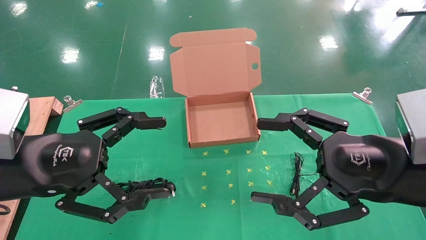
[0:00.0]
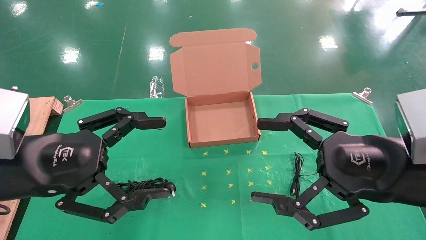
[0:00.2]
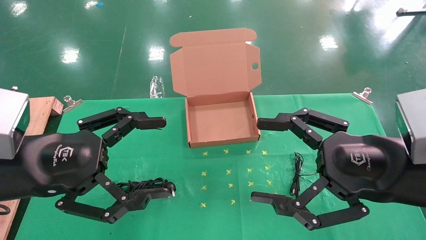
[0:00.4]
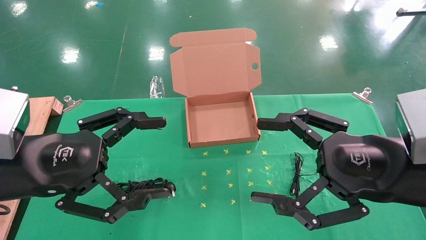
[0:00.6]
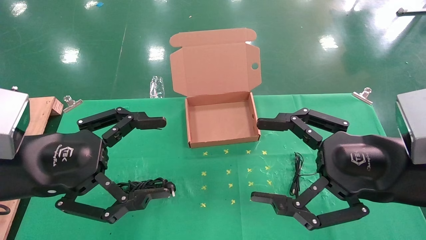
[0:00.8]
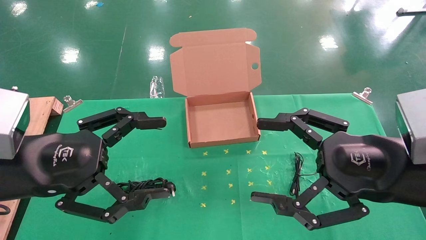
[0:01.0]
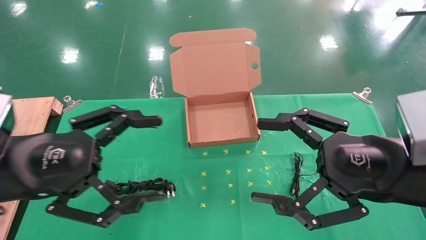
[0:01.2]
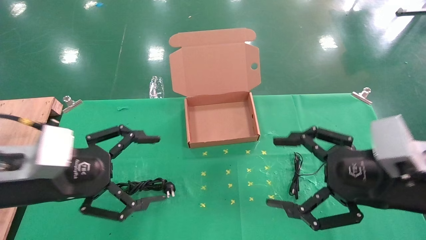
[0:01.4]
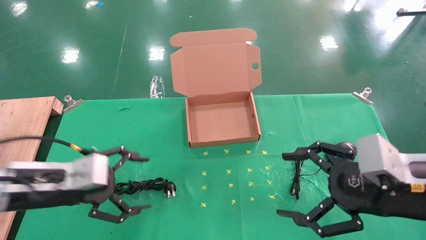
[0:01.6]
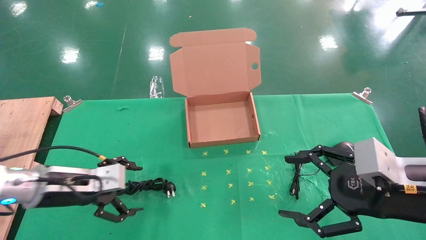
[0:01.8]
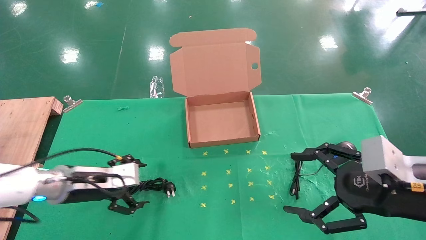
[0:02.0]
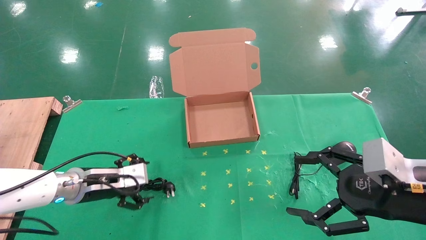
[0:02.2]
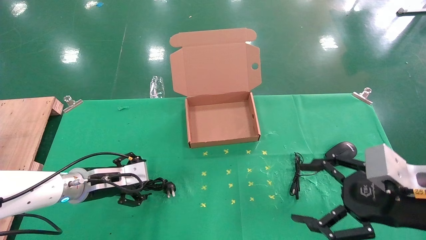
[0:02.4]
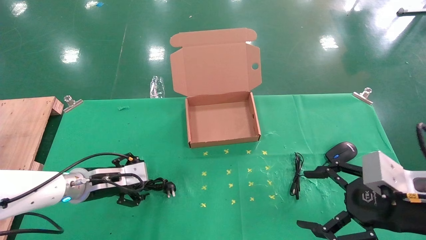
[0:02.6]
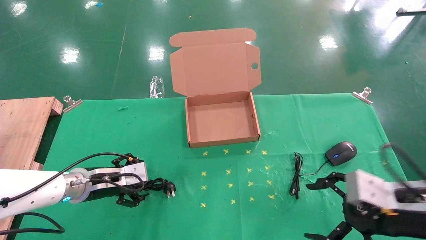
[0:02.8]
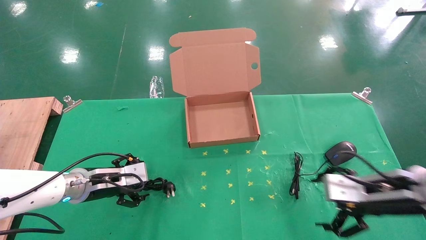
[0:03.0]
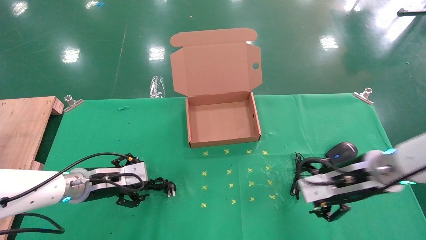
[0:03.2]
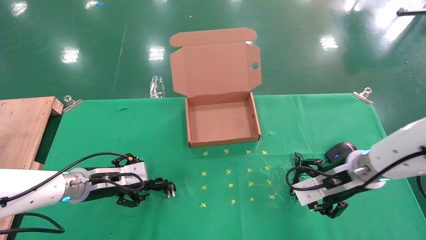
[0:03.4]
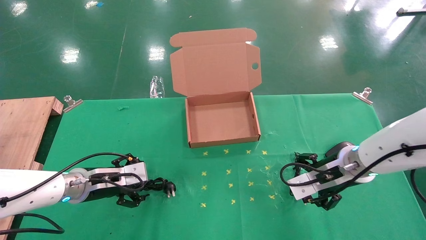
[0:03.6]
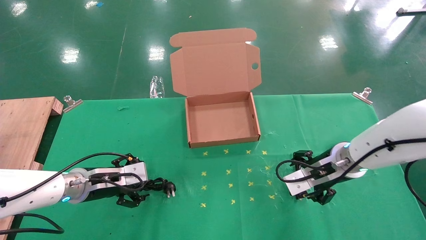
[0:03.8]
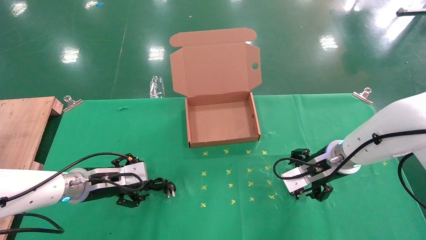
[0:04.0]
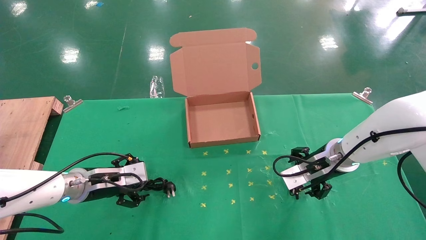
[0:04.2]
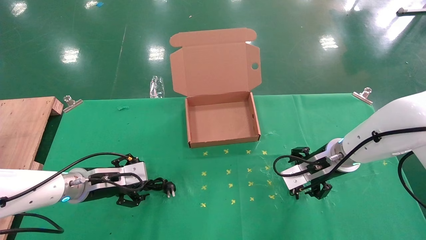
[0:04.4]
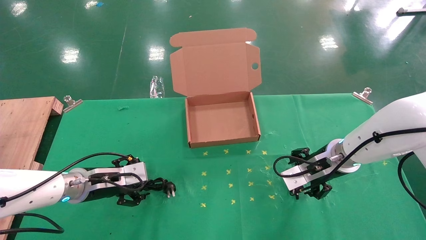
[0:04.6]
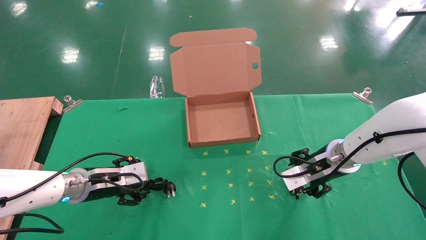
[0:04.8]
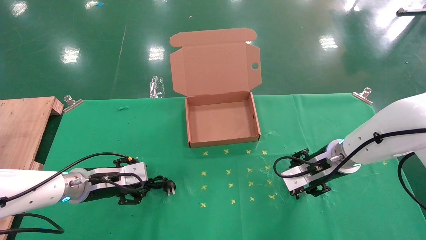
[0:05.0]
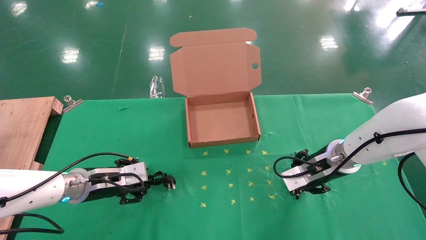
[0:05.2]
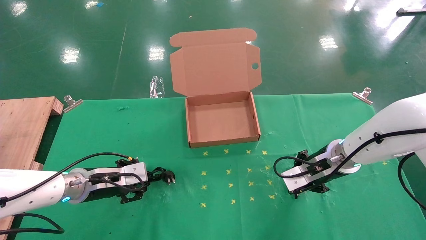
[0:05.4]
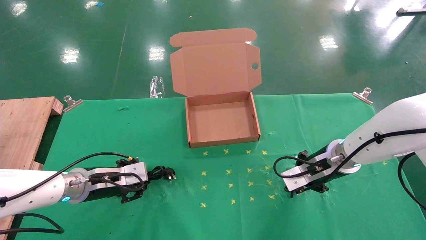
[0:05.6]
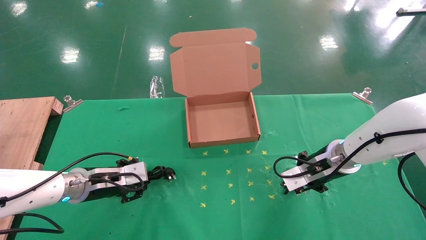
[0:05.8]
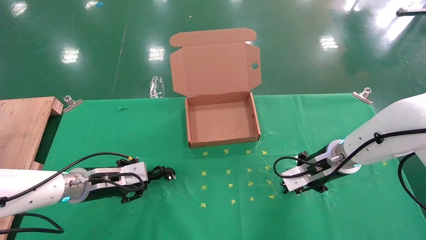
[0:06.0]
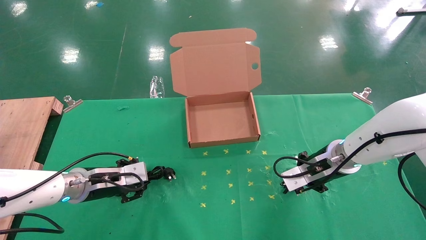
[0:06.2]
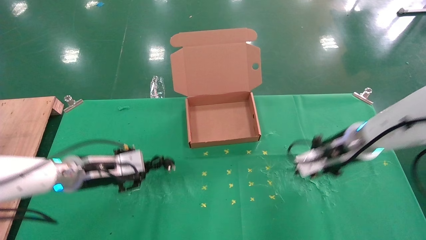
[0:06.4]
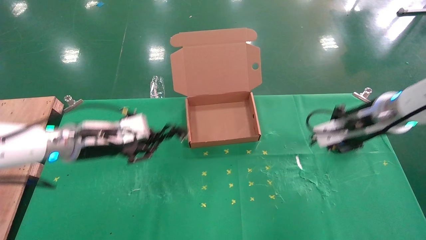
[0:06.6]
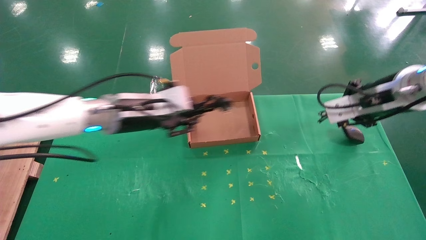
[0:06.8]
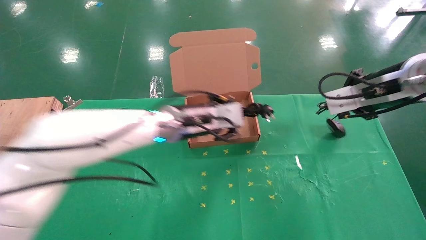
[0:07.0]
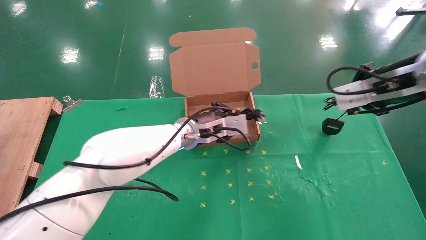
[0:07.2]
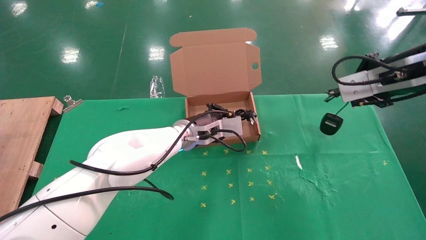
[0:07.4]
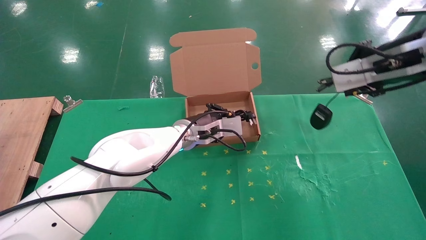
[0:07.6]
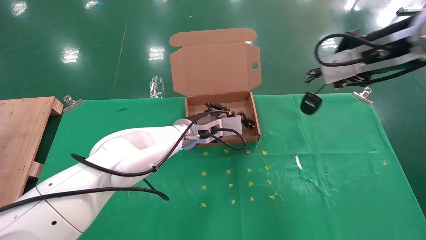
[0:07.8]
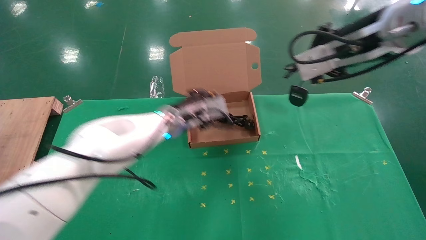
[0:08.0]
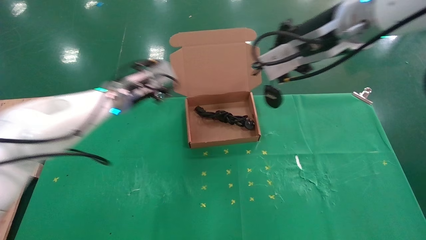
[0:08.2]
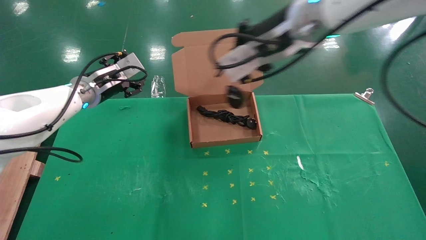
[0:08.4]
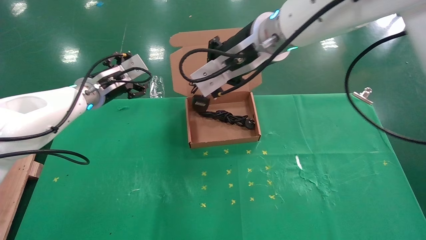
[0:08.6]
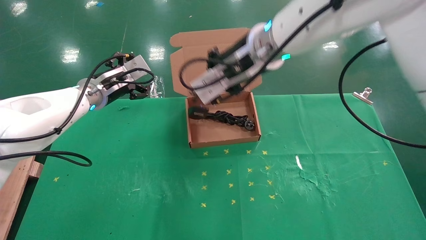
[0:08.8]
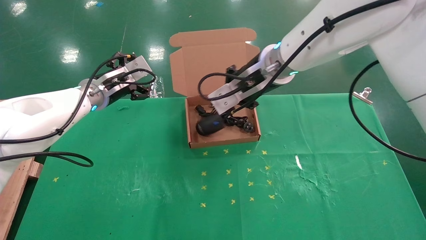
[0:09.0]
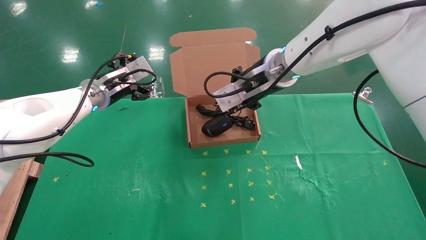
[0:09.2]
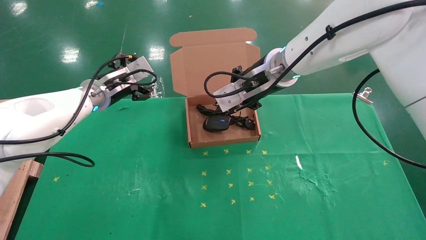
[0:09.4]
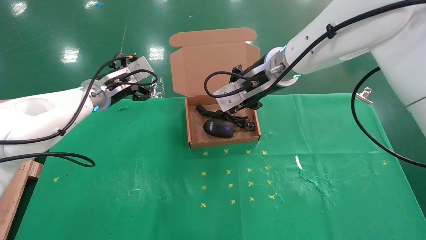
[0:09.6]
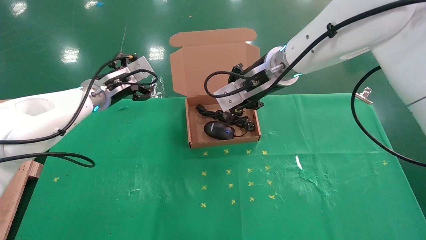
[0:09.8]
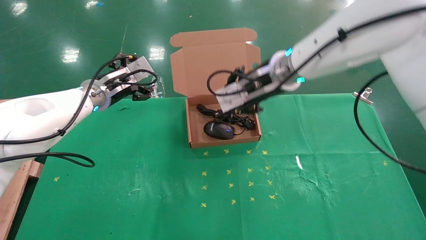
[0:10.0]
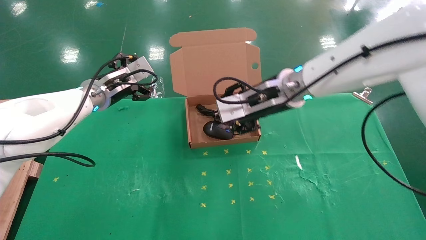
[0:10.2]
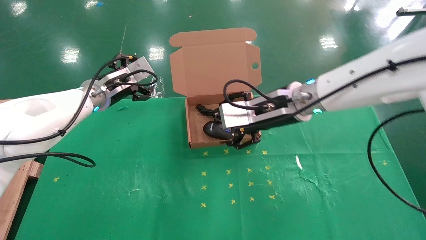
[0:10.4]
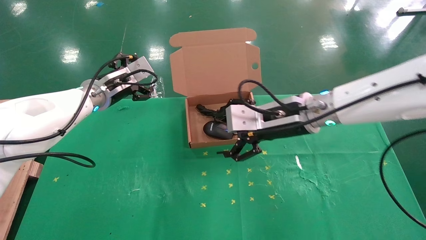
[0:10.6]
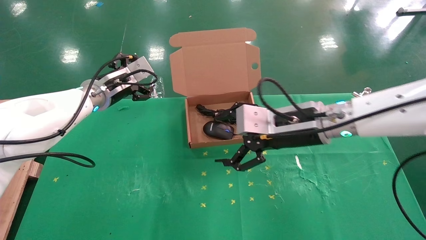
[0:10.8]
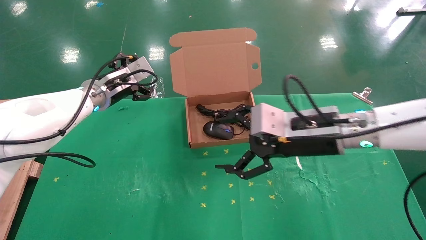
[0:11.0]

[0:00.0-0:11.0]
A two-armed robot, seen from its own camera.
Task of the whole recording: grasp data cable left put into box grasp mouse right put into box.
Step, 0:01.4 to 0:06.0: Simultaneously pick up the mouse and power cord from the accessory packaging area.
Step, 0:06.2 to 0:09.6: Place the mouse and power cord into the box.
0:00.0 to 0:01.6: The left gripper heads downward and forward, covering some 10 cm. Meanwhile the right gripper moves about 5 cm.
0:01.6 to 0:03.2: The two grippers go about 10 cm forward and downward.
0:03.2 to 0:04.8: The right gripper moves forward, about 10 cm.
0:04.8 to 0:06.2: The right gripper closes up. The left gripper closes up.
0:06.2 to 0:07.8: The left gripper travels to the right and forward by some 25 cm, while the right gripper is displaced upward by approximately 25 cm.
0:07.8 to 0:09.4: The right gripper is displaced to the left and forward by approximately 20 cm; the left gripper heads to the left and upward, covering some 20 cm, and opens its fingers.
0:09.4 to 0:11.0: The right gripper heads backward, downward and to the right, covering roughly 15 cm, and opens up.

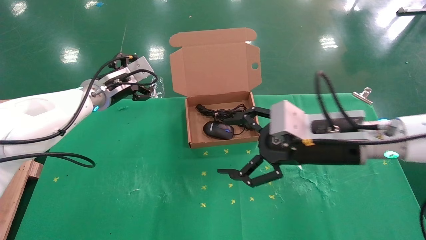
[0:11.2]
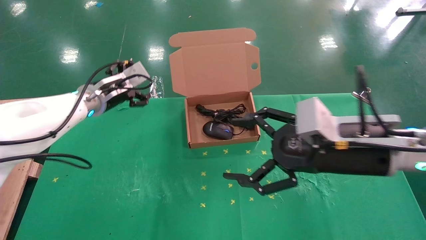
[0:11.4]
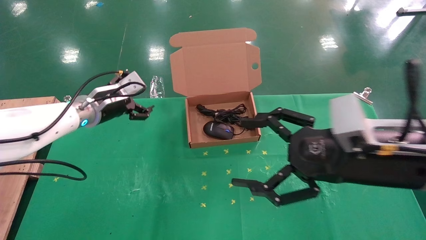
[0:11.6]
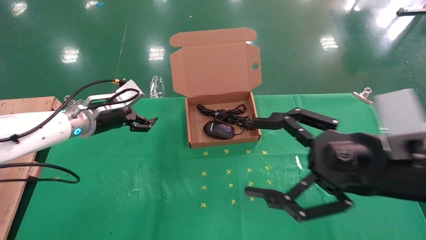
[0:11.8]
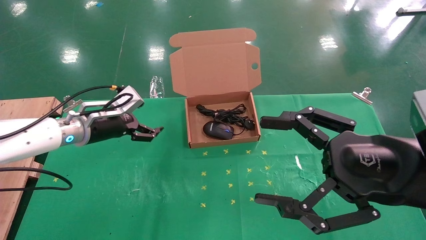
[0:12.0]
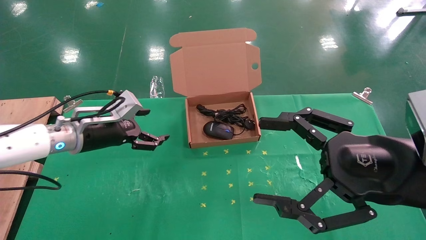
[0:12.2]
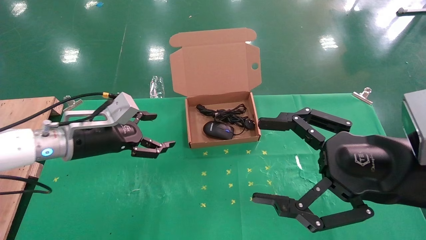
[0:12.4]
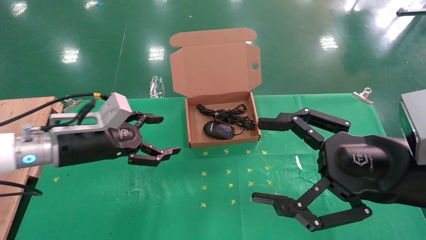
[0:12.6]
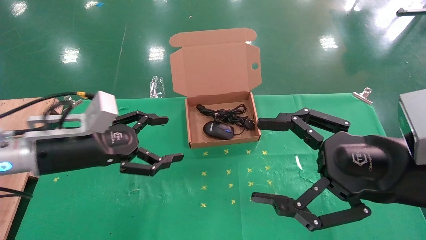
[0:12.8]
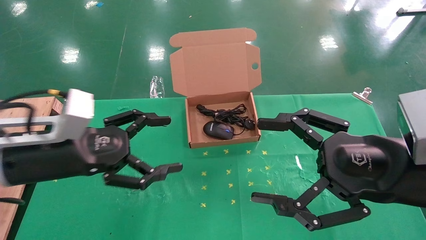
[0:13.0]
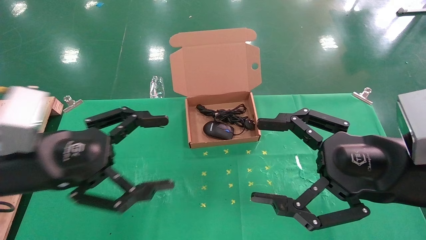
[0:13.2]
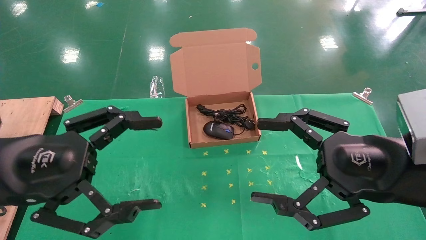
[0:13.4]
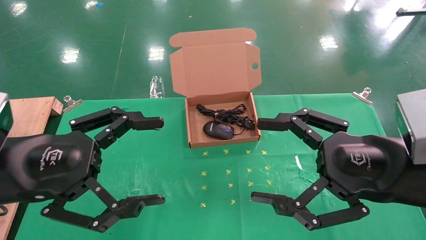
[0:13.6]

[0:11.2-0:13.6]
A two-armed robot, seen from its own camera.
Task of the whole recording: grasp data cable left put into box grasp mouse right put into box.
0:11.2 to 0:12.4: The right gripper shifts roughly 10 cm backward and to the right, while the left gripper goes about 10 cm backward and downward.
0:12.4 to 0:13.6: The left gripper is displaced backward by roughly 15 cm.

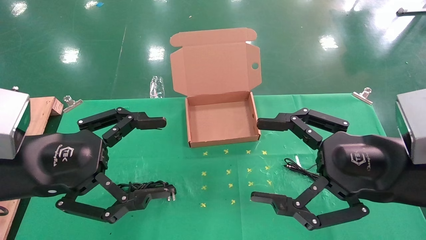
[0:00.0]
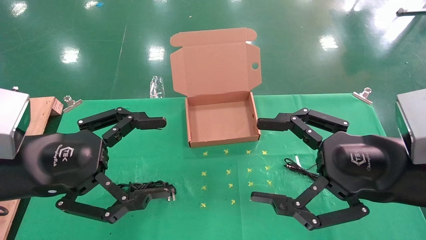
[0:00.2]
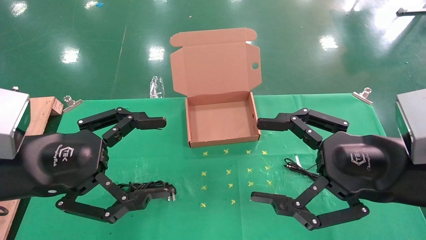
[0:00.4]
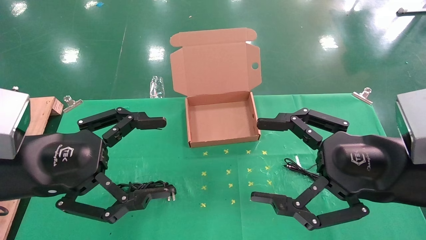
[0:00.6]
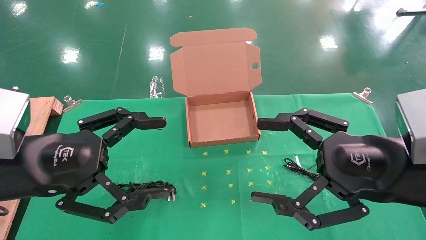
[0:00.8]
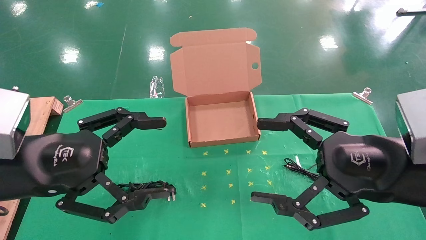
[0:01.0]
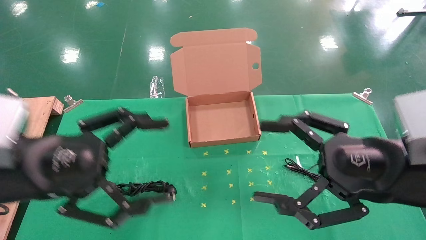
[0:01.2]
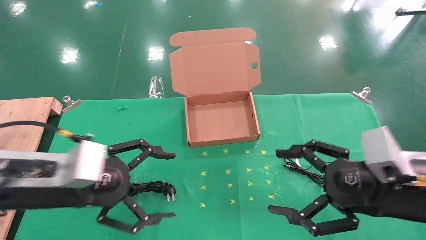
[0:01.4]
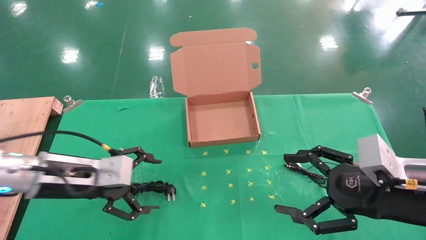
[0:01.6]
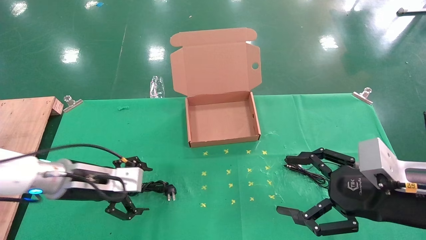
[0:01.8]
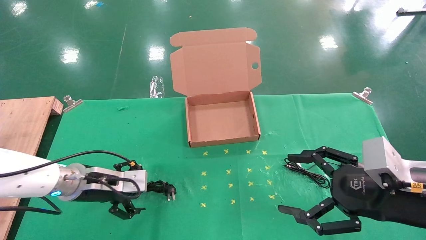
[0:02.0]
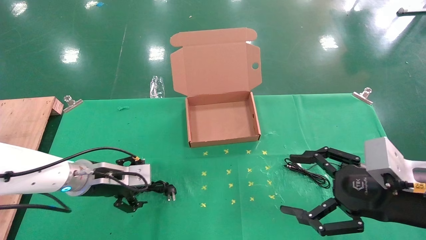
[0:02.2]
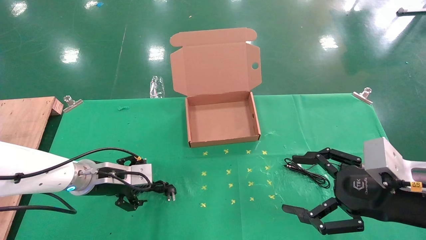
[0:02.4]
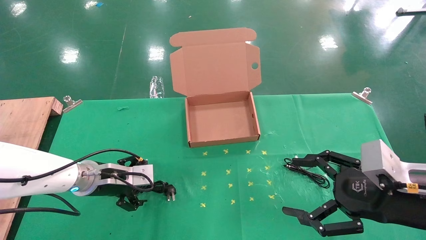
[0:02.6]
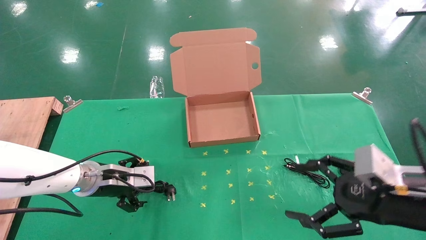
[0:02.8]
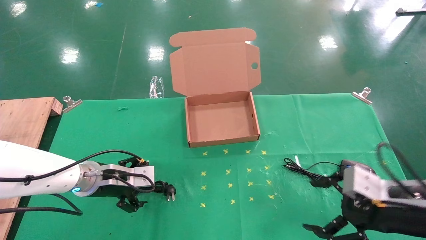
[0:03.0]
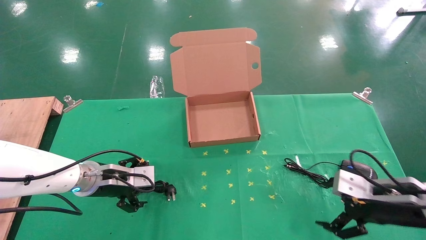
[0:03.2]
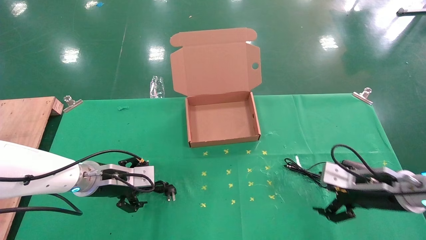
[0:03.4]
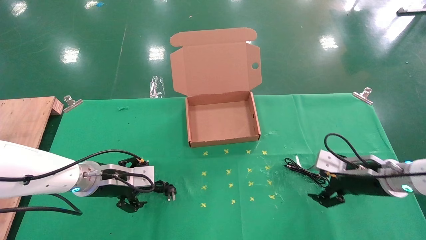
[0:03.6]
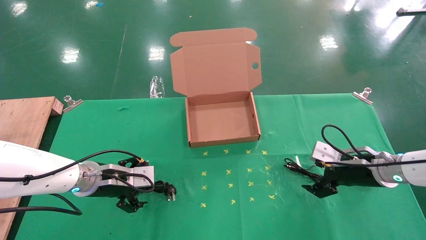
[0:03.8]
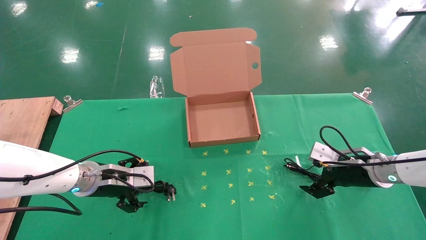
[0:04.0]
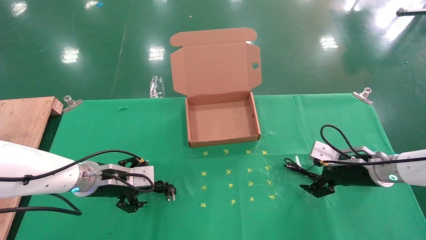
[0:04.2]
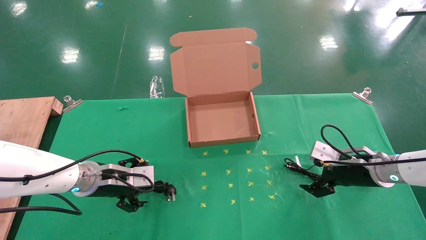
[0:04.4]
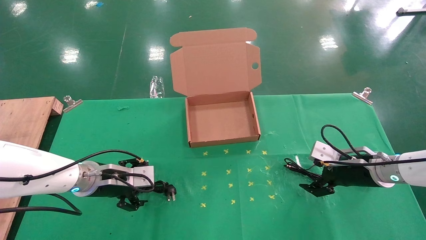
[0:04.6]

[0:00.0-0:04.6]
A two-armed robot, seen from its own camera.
Task of the whole recording: grasp data cable left put into box grasp mouse right put into box.
0:00.0 to 0:01.6: The right gripper is displaced downward by roughly 5 cm; the left gripper travels forward and downward by some 15 cm.
0:01.6 to 0:03.0: The right gripper heads downward, covering about 5 cm. The left gripper shifts about 10 cm forward and downward.
0:03.0 to 0:04.6: The right gripper travels forward by about 15 cm.
